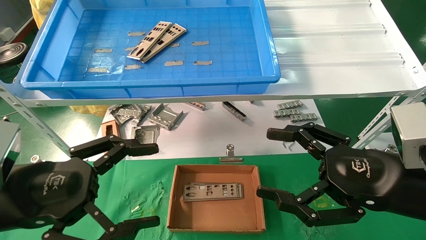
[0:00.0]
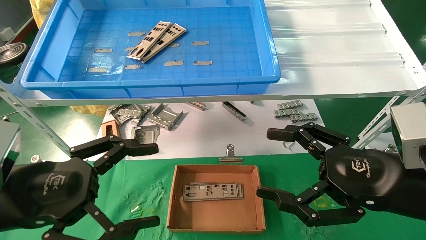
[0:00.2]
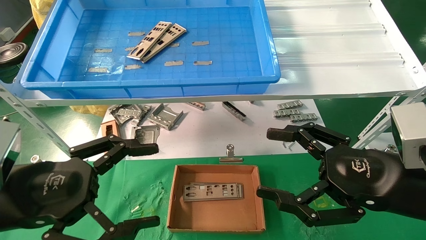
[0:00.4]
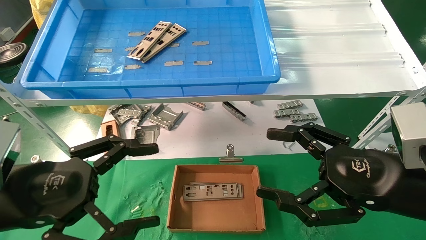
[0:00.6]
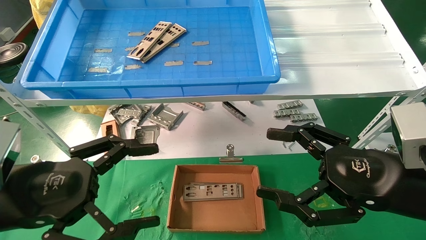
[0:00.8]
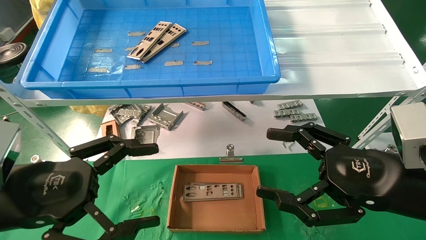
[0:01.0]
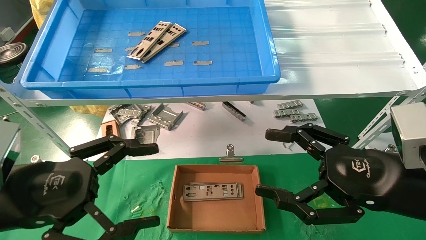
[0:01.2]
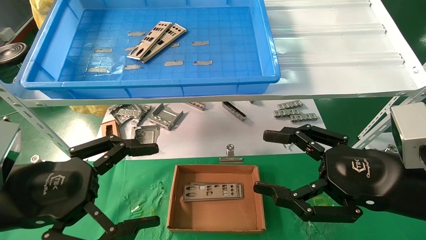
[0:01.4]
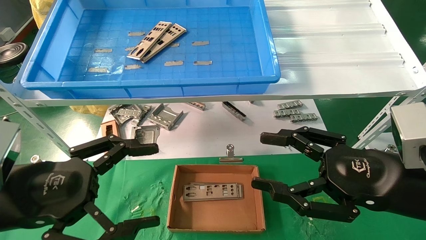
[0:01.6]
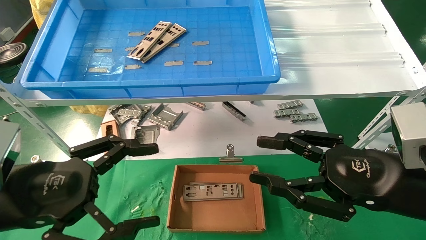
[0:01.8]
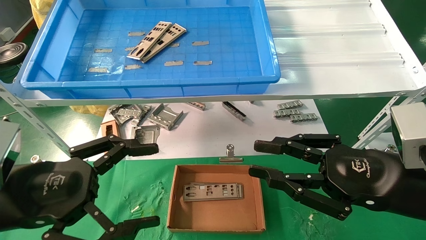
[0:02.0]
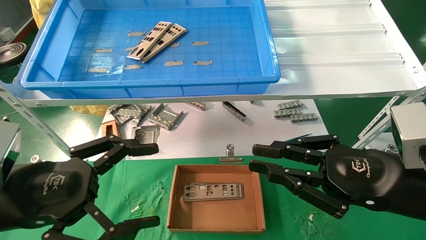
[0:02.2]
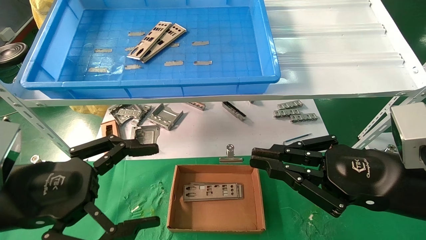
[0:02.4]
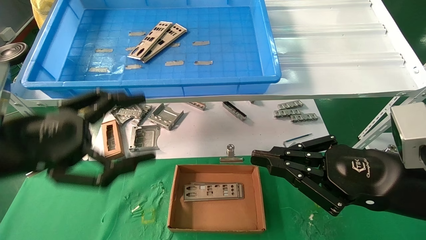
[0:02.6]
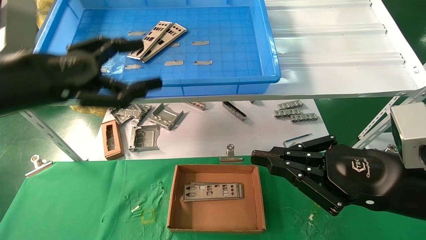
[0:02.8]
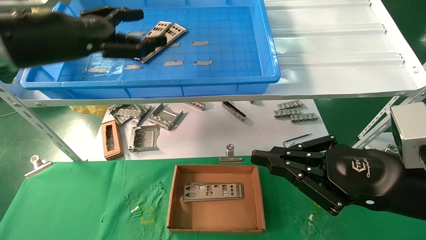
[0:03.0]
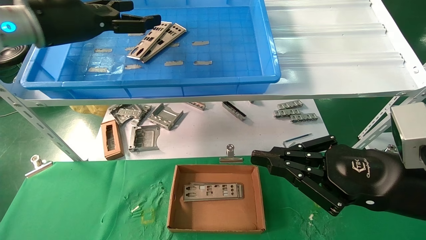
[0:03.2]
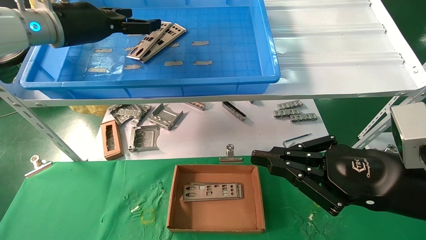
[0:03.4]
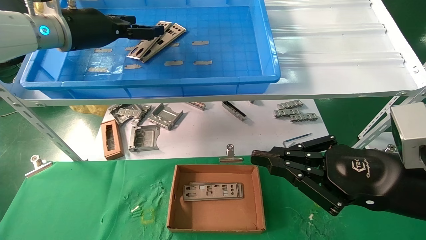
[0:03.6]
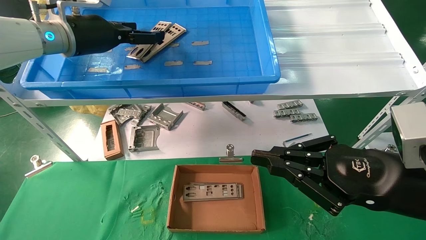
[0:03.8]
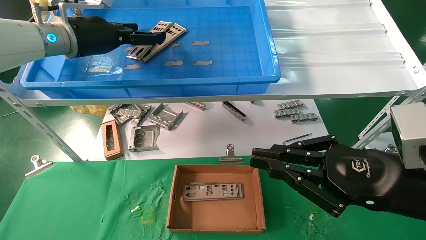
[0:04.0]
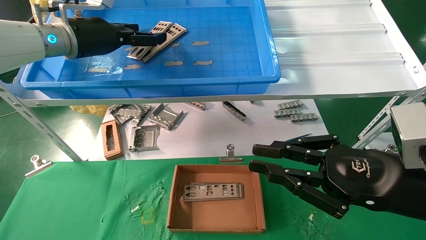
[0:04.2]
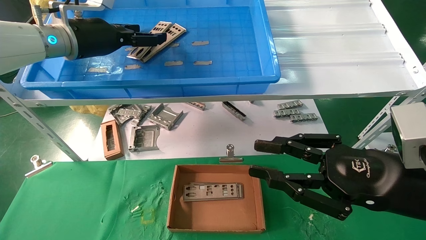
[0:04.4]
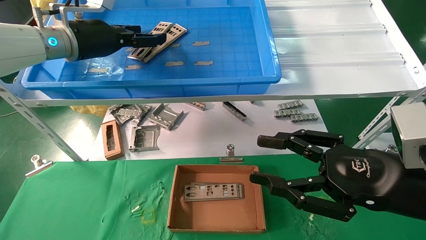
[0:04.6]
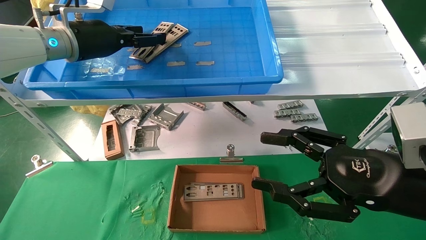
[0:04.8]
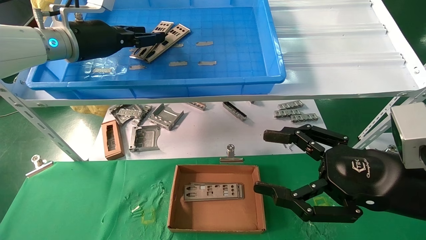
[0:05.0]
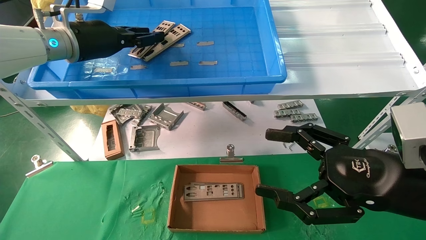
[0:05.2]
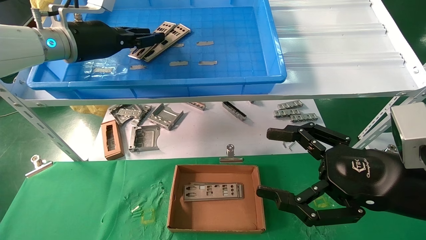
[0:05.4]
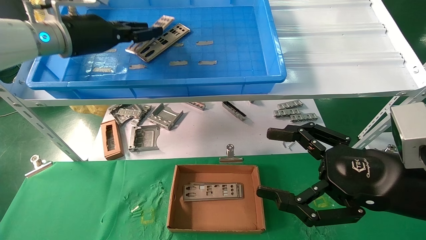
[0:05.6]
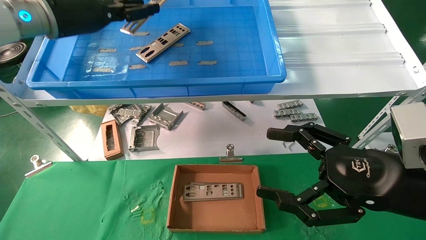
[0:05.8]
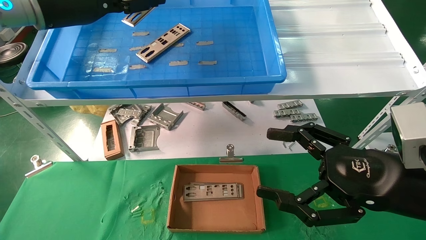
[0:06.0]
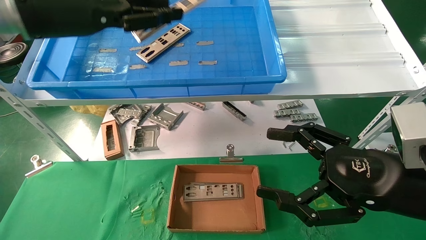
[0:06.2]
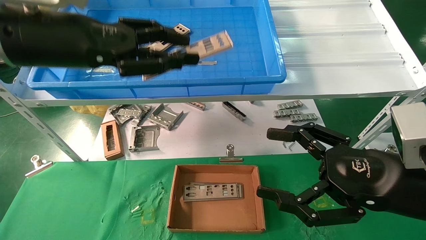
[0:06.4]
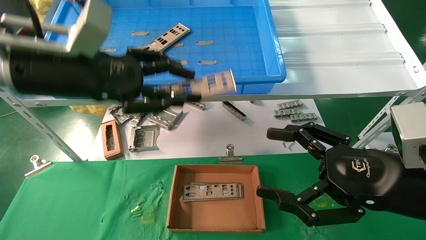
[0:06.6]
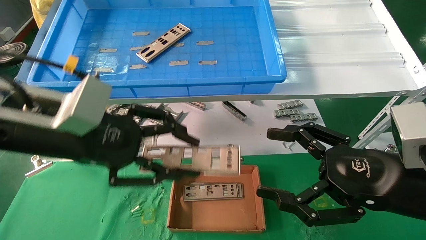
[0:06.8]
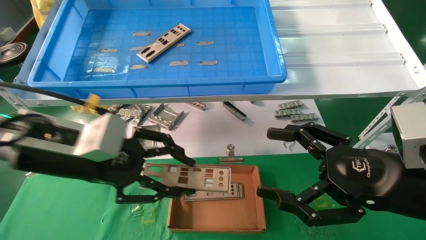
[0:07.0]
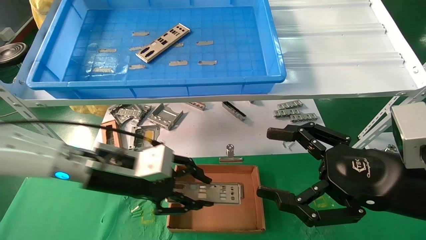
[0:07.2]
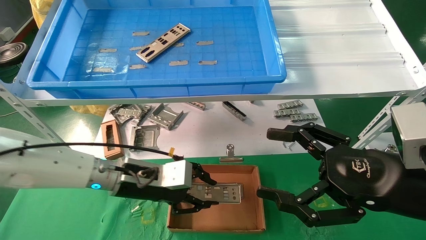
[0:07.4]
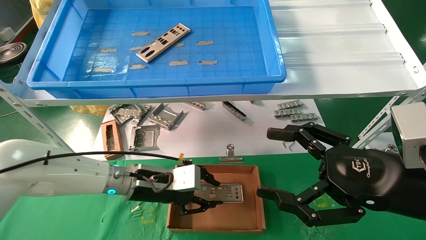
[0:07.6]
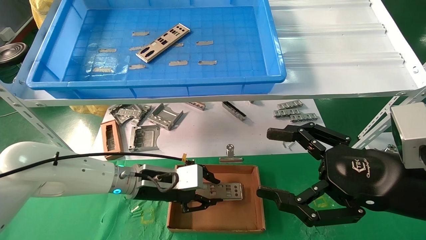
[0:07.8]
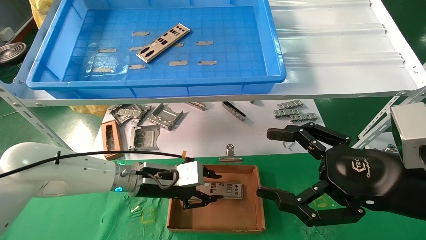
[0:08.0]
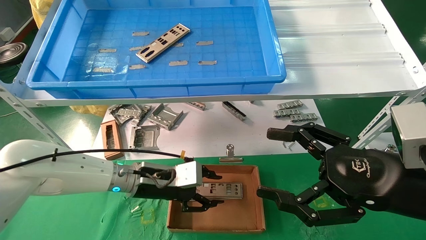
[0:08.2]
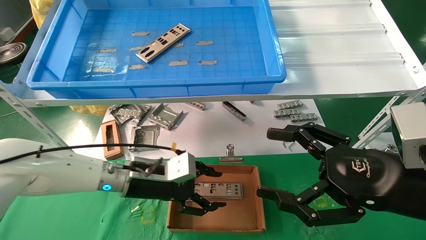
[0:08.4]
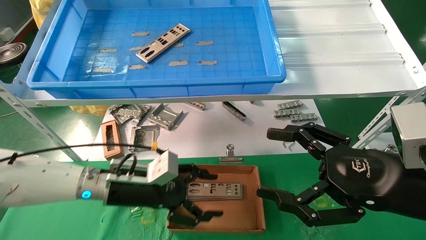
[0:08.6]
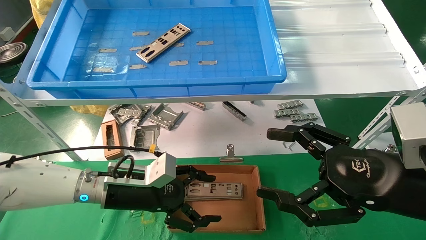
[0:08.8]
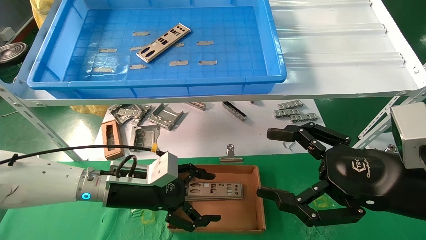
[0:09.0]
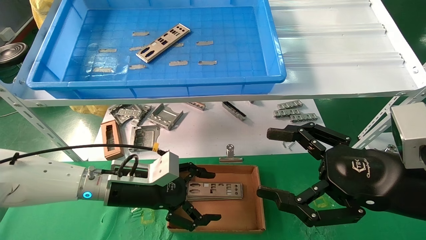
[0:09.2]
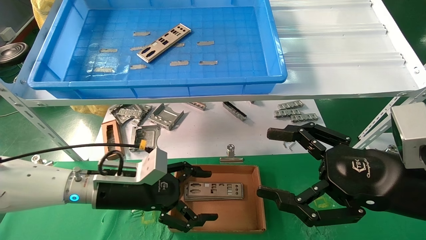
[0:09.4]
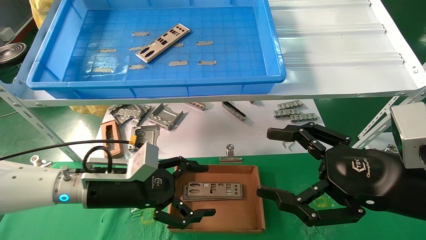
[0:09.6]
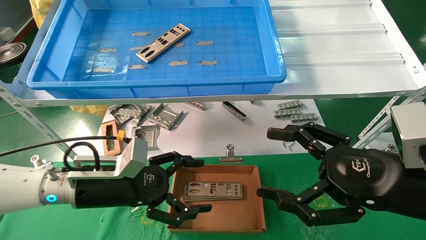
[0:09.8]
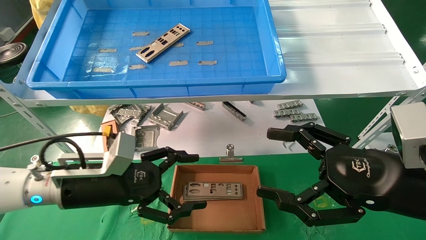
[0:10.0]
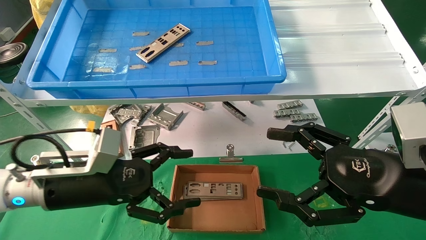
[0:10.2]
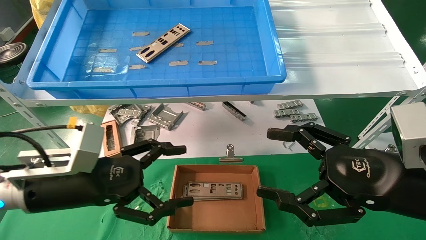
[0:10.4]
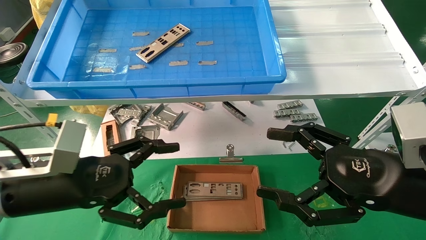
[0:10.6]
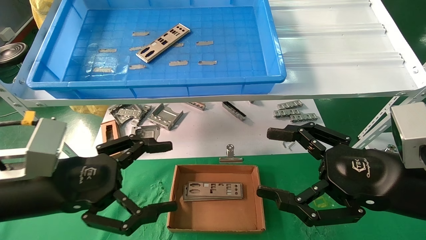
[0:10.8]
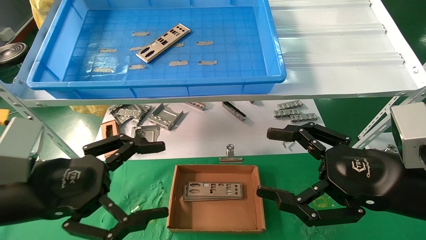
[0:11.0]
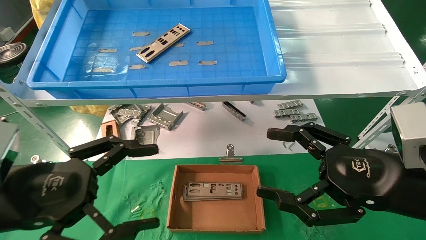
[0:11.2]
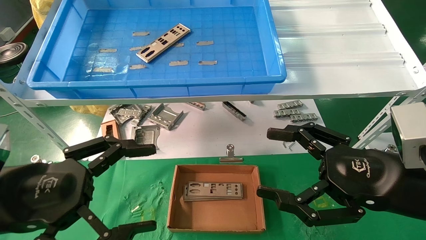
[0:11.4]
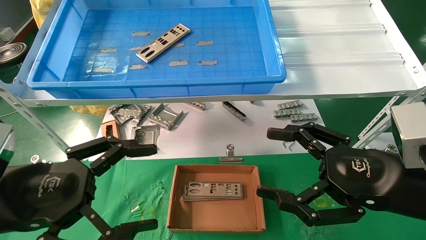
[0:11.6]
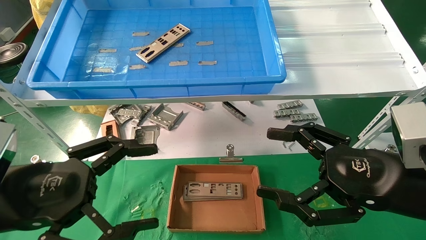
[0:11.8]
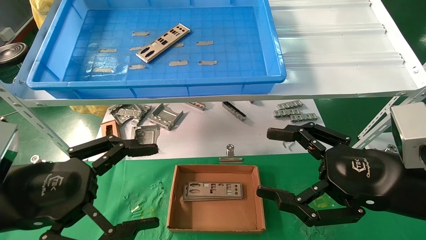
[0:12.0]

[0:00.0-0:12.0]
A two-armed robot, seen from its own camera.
Task of the whole recording: pick up the parts on the tray and put them in the cardboard box.
Step, 0:03.0 to 0:05.2: Pick up the IO bracket from the container box.
Step, 0:05.4 to 0:08.0: Place the IO bracket into the ingredient slot.
0:00.0 to 0:01.6: The two grippers keep their place.
0:01.6 to 0:03.0: The left gripper travels upward and forward by some 20 cm. The right gripper closes its fingers.
0:03.0 to 0:04.4: The left gripper is displaced forward by about 10 cm.
0:04.4 to 0:06.0: The left gripper heads backward, covering roughly 5 cm, and closes up. The right gripper opens.
0:06.0 to 0:07.6: The left gripper heads downward, covering about 30 cm.
0:07.6 to 0:09.0: The left gripper opens up.
0:09.0 to 0:10.4: The left gripper shifts approximately 10 cm backward, to the left and upward.
0:10.4 to 0:12.0: The left gripper moves backward, about 10 cm.

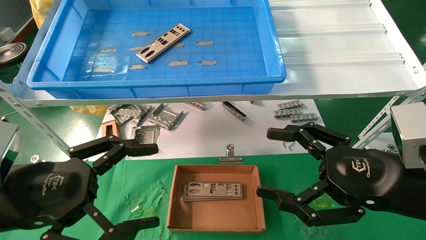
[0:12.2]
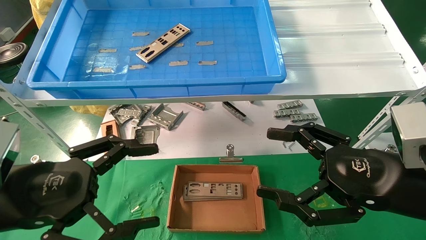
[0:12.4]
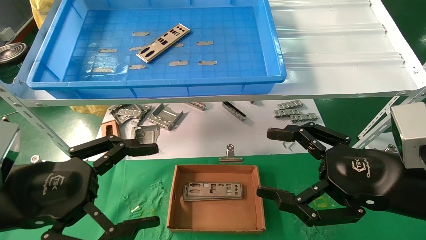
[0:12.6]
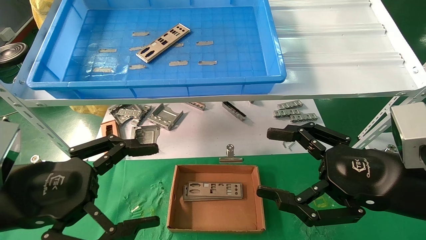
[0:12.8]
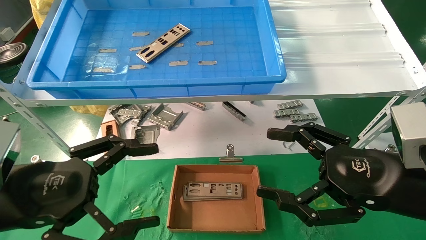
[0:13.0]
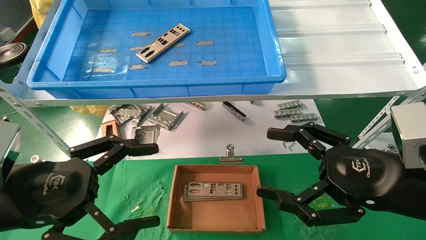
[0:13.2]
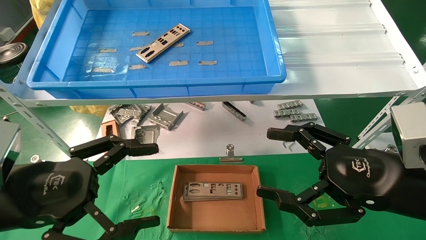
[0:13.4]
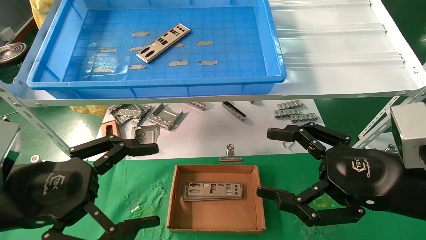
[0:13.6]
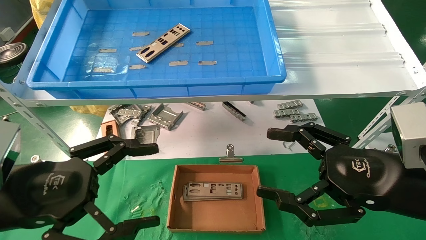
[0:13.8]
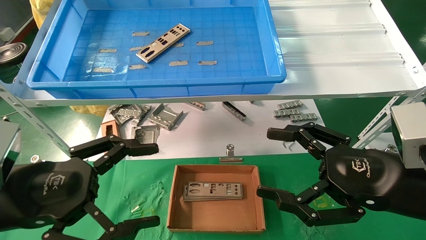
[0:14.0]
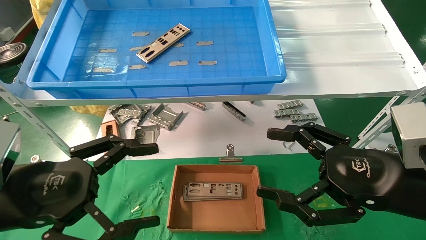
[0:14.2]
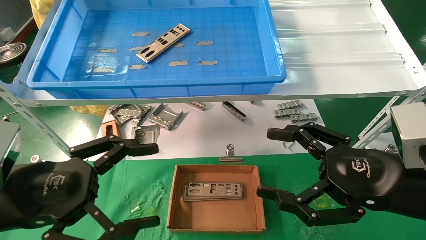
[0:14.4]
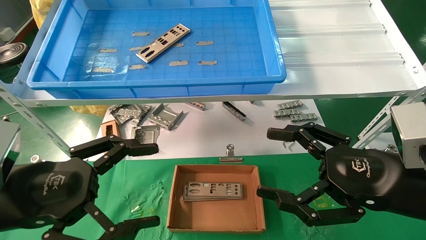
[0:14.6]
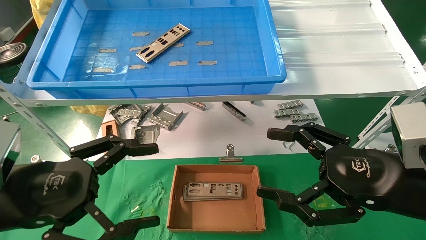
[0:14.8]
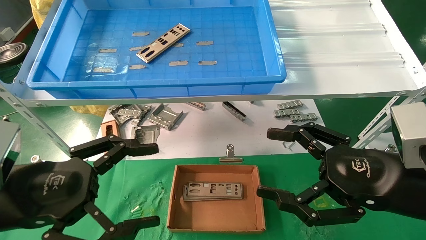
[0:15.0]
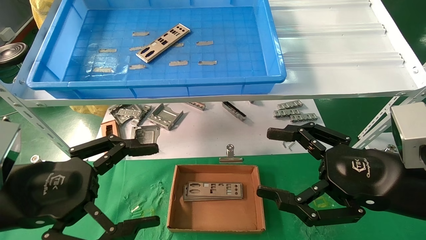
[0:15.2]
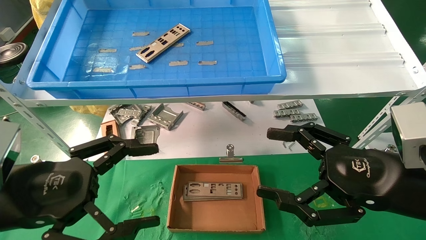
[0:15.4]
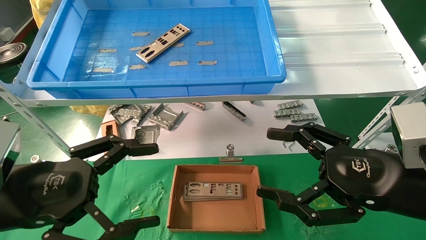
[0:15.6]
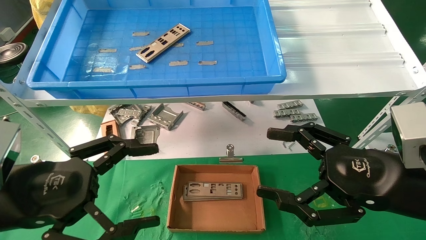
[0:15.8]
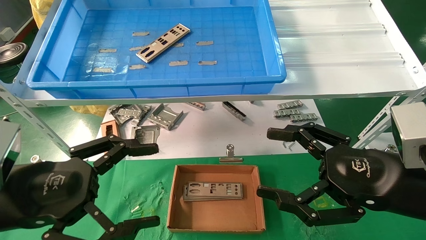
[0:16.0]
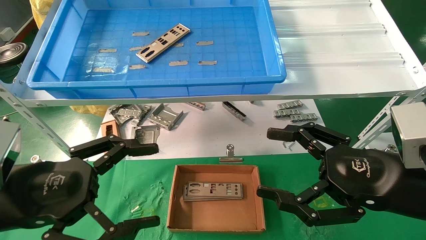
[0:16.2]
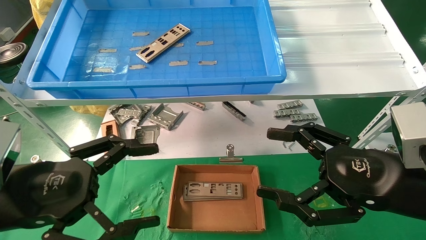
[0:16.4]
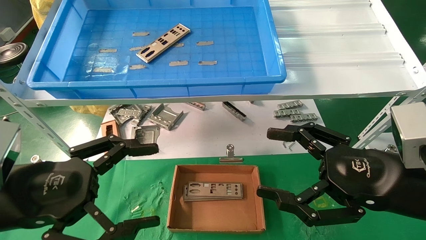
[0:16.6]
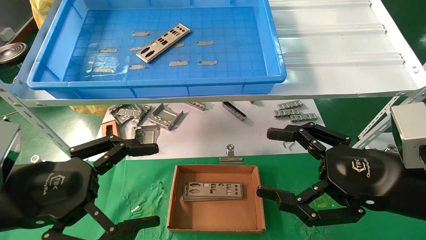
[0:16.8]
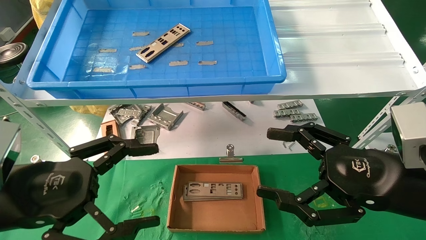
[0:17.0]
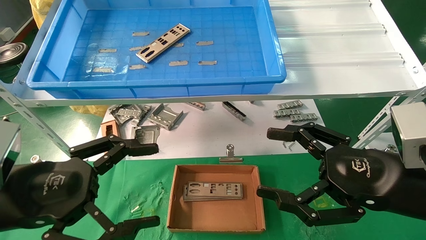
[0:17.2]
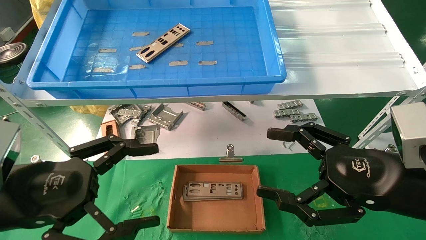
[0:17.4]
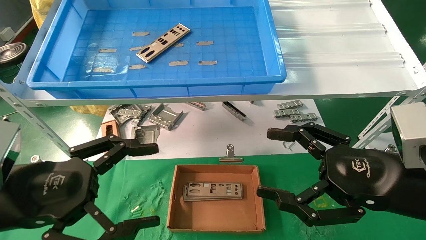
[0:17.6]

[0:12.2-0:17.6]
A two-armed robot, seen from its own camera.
Task of the whole recording: pick up the parts on the tray and put them in the cardboard box.
0:12.2 to 0:17.6: Neither gripper changes place.
